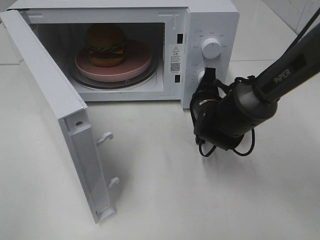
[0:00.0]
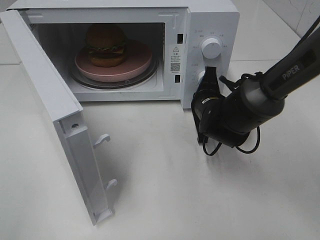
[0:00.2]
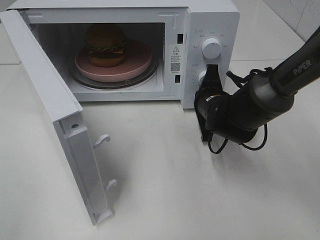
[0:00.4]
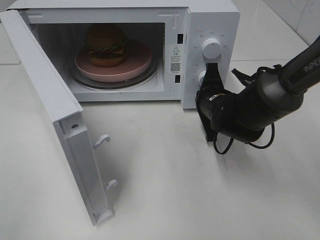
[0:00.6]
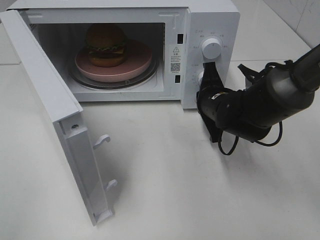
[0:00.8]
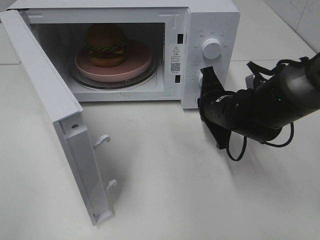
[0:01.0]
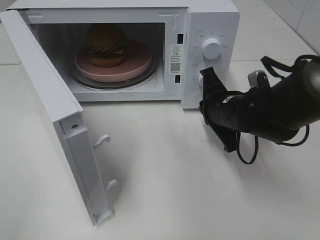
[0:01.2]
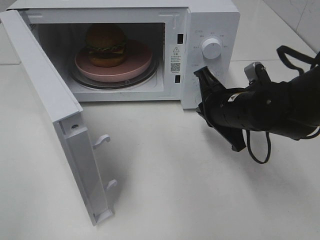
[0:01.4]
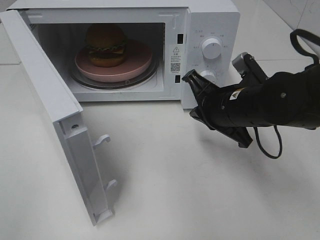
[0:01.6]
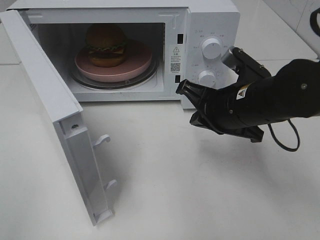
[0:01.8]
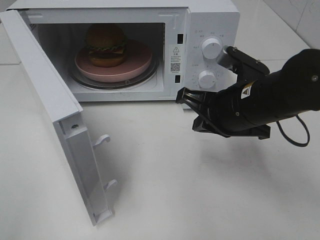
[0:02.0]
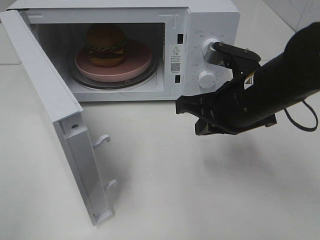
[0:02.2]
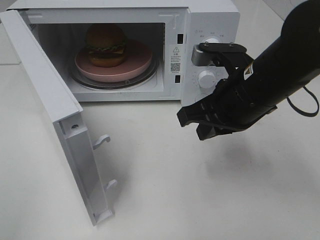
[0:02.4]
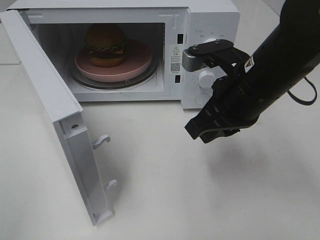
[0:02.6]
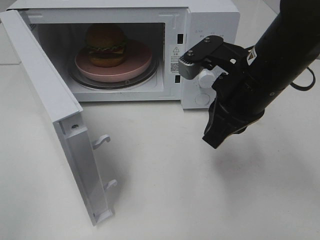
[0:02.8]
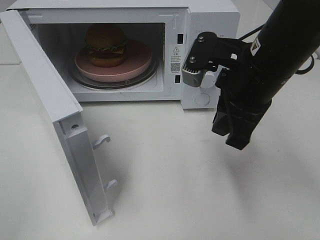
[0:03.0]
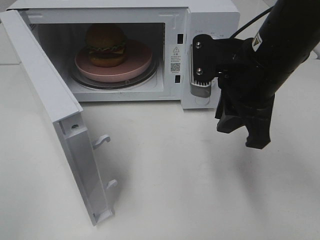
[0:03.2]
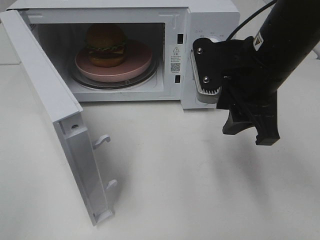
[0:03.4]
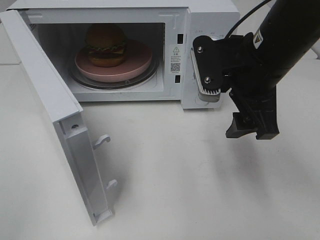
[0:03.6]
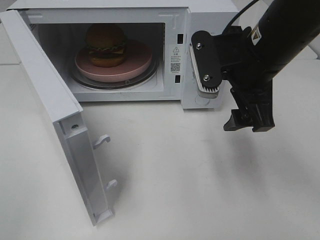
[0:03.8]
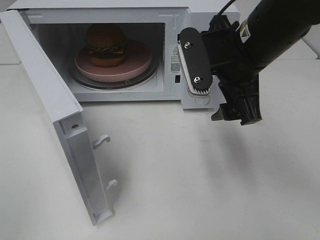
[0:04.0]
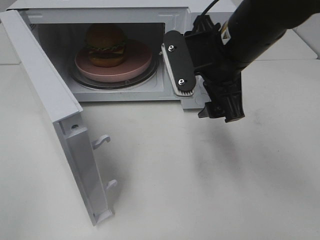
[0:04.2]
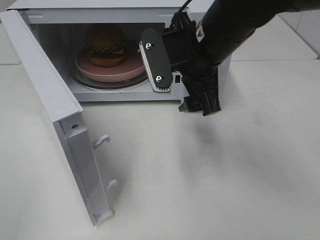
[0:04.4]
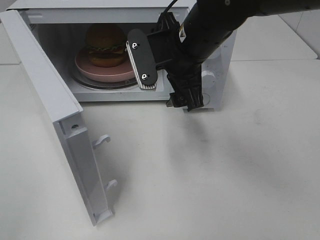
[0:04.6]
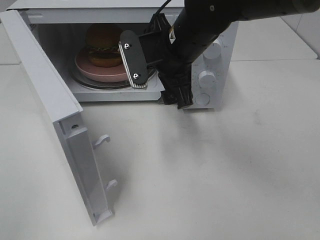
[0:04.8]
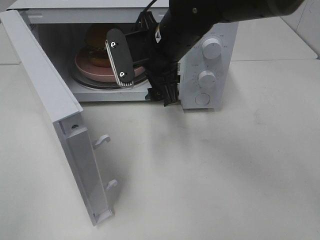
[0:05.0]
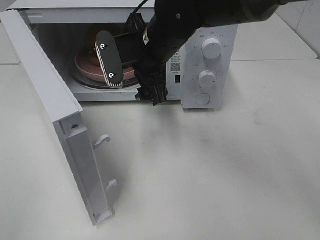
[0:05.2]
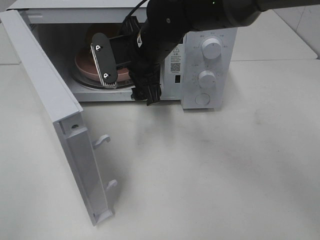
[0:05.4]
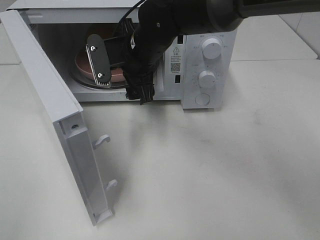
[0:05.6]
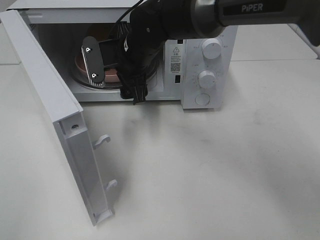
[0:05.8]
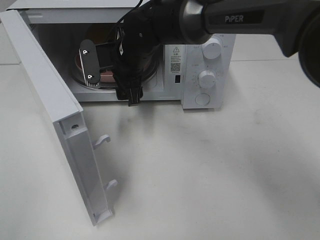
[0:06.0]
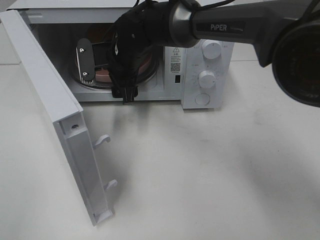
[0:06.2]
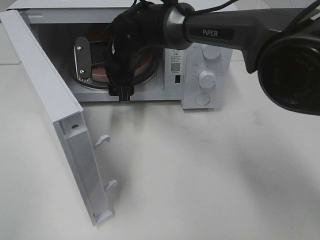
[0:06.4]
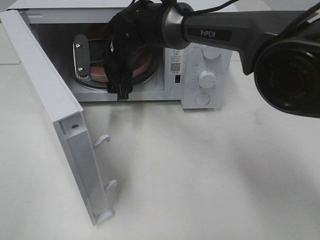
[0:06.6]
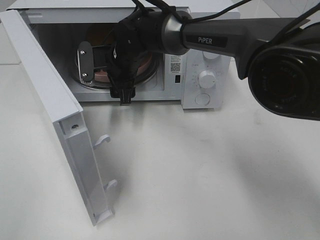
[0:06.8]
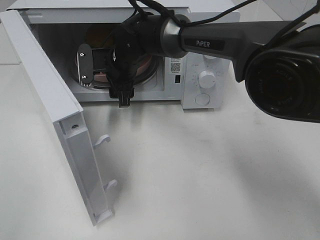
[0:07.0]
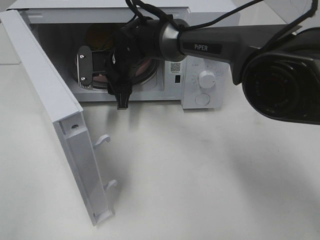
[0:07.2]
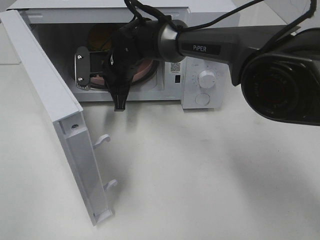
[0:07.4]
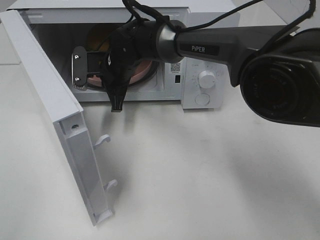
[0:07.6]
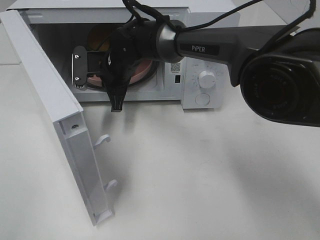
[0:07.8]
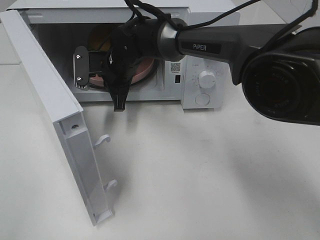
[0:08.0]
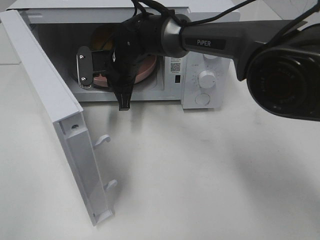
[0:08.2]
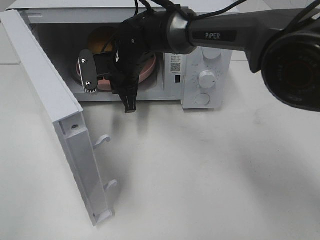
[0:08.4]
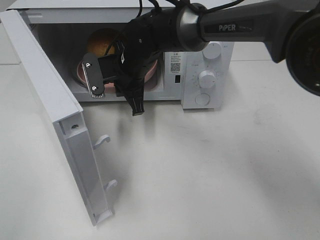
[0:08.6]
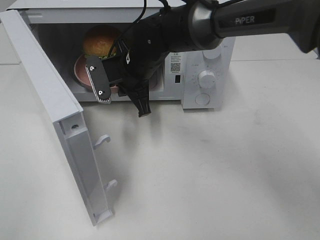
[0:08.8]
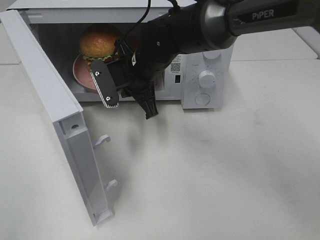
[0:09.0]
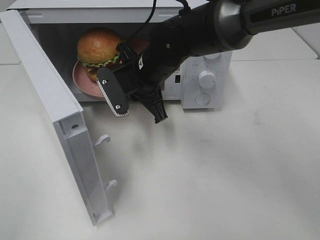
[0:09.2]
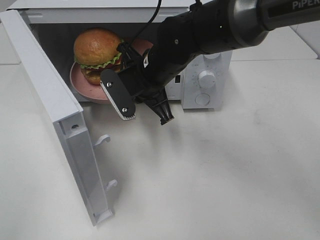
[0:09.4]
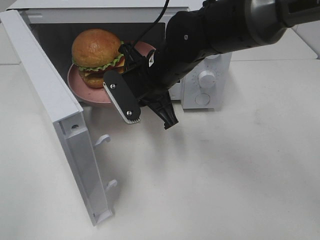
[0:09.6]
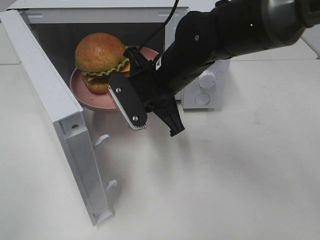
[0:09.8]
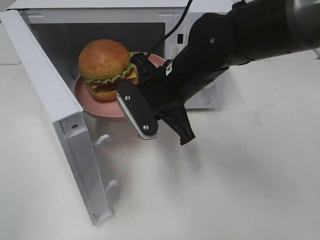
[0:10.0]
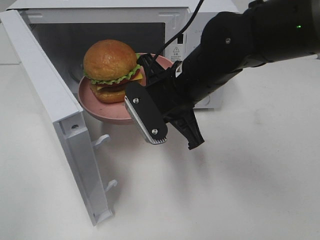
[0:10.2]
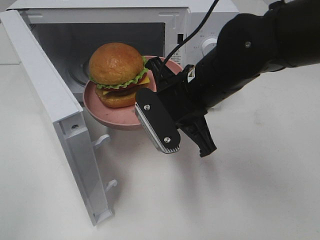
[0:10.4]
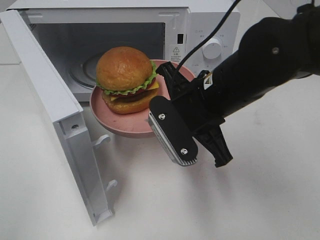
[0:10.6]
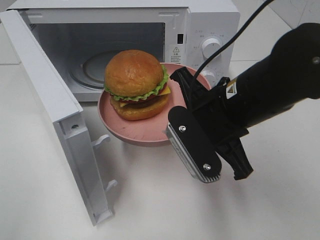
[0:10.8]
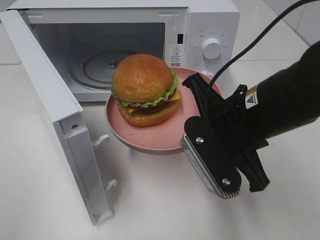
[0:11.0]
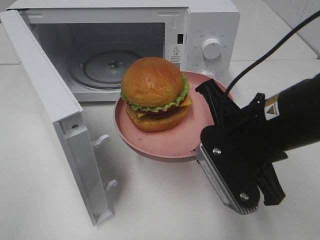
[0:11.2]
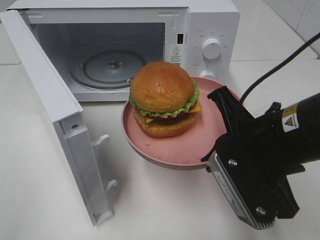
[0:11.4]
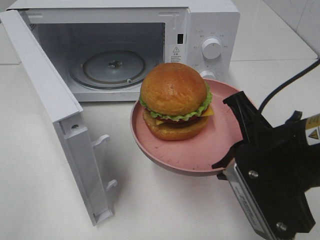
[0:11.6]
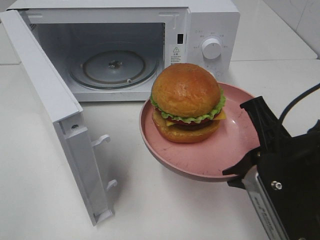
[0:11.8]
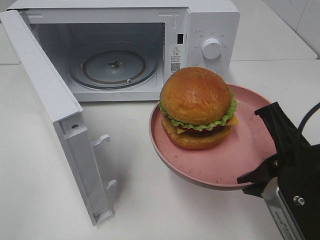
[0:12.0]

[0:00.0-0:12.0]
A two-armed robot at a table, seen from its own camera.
Task of the whole recording: Heat the burger.
Step, 0:01.2 to 0:07.6: Right hand: grab the plate with the hamburger.
0:00.0 to 0:01.6: The right gripper heads backward and upward, covering roughly 10 cm.
0:01.6 to 0:03.0: The right gripper moves upward, some 10 cm.
0:03.0 to 0:04.4: The right gripper is displaced to the left by roughly 5 cm, and opens.
0:04.4 to 0:06.0: The right gripper heads to the left, forward and downward, covering some 15 cm.
0:06.0 to 0:07.6: The right gripper shifts by approximately 5 cm, and closes up.
0:07.6 to 0:09.0: The right gripper is displaced backward and to the right by roughly 10 cm.
0:09.0 to 0:10.4: The right gripper moves backward and to the right, about 15 cm.
0:10.4 to 0:12.0: The right gripper goes approximately 20 cm backward and to the right.

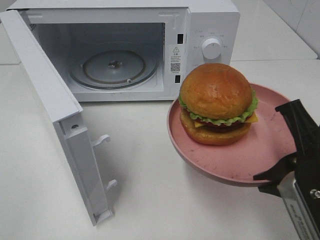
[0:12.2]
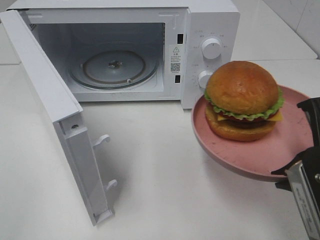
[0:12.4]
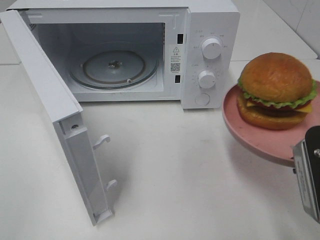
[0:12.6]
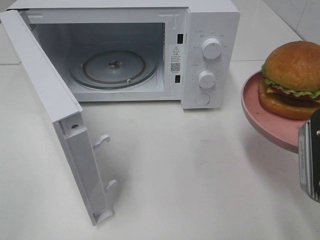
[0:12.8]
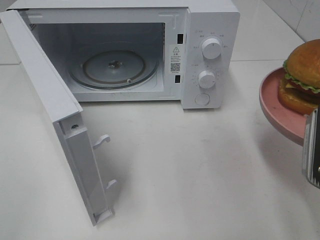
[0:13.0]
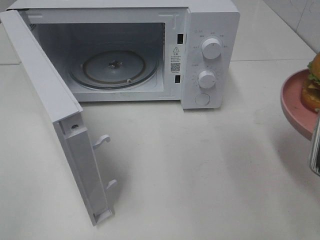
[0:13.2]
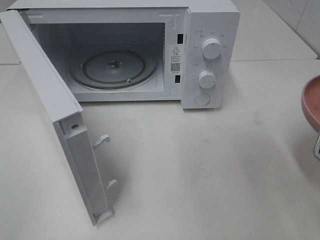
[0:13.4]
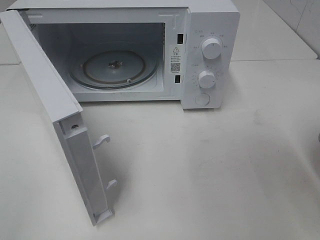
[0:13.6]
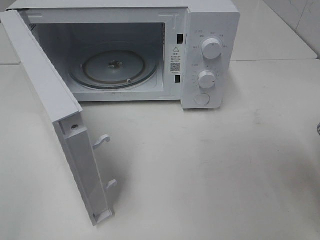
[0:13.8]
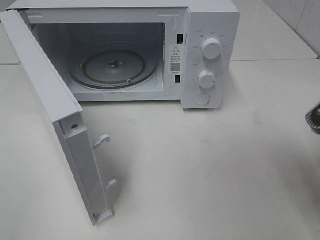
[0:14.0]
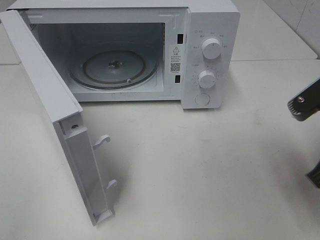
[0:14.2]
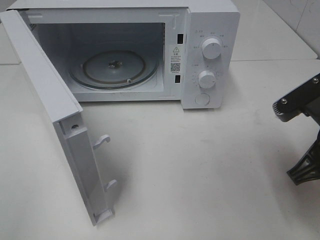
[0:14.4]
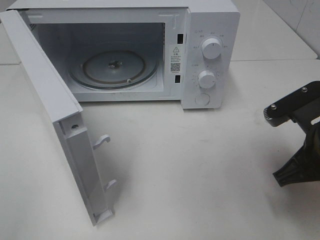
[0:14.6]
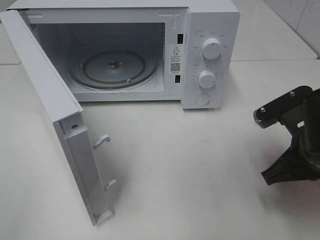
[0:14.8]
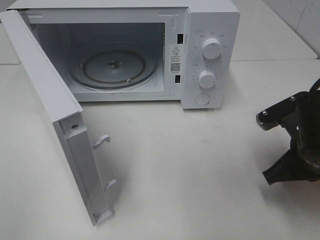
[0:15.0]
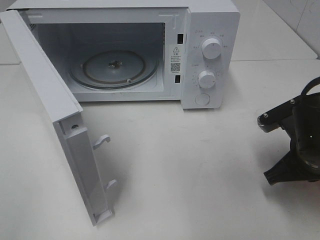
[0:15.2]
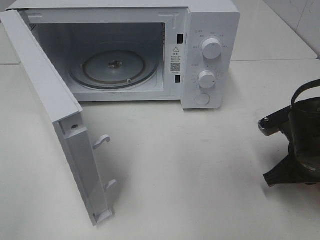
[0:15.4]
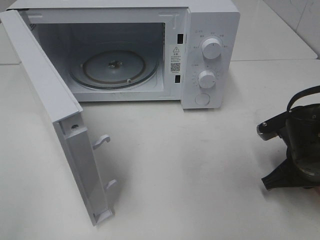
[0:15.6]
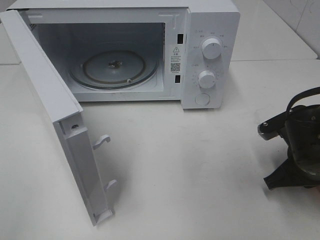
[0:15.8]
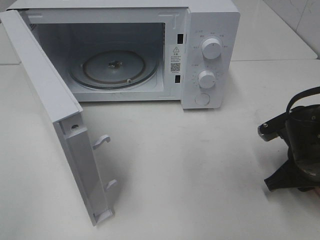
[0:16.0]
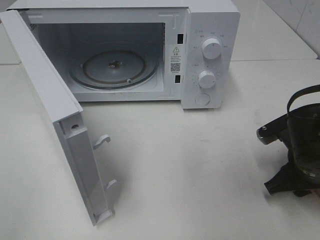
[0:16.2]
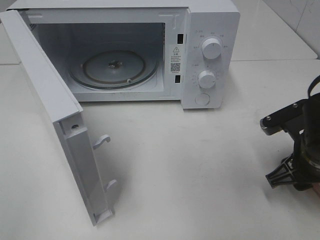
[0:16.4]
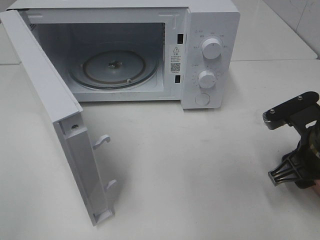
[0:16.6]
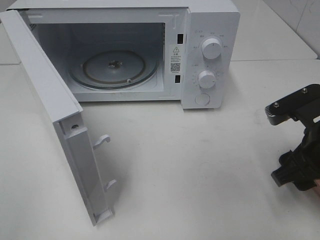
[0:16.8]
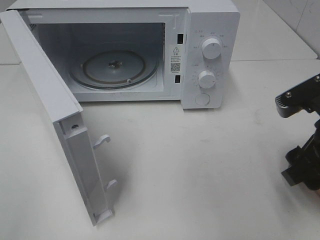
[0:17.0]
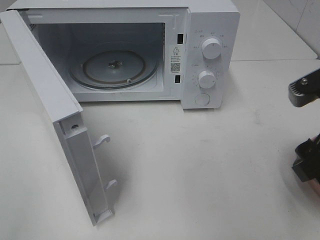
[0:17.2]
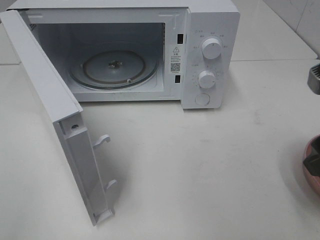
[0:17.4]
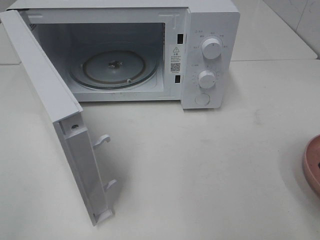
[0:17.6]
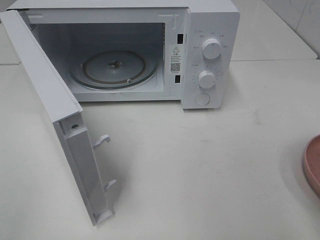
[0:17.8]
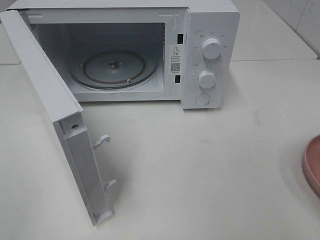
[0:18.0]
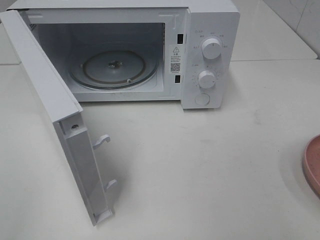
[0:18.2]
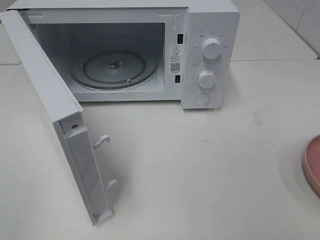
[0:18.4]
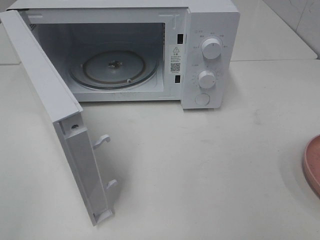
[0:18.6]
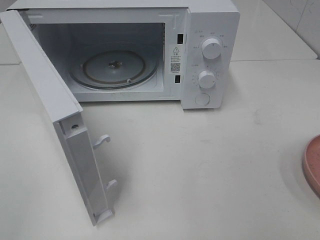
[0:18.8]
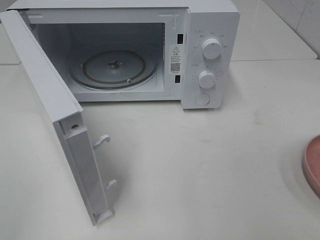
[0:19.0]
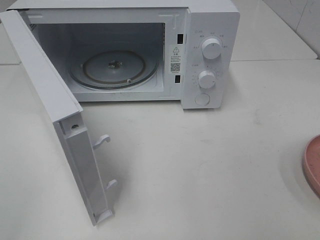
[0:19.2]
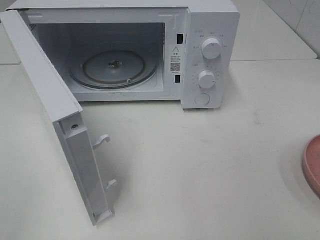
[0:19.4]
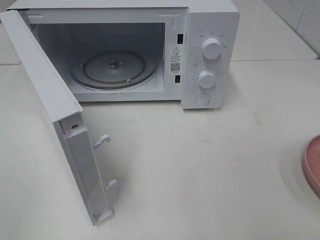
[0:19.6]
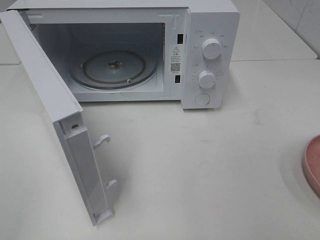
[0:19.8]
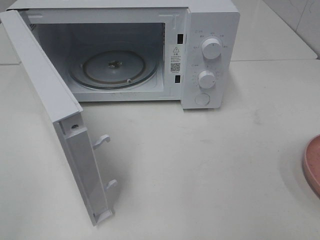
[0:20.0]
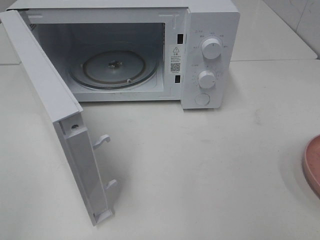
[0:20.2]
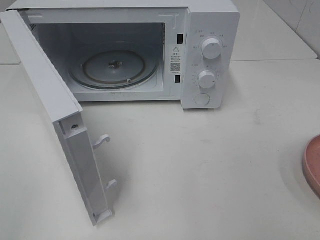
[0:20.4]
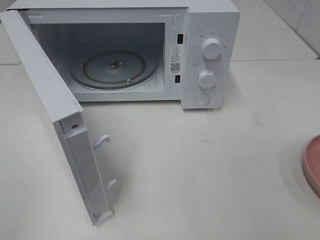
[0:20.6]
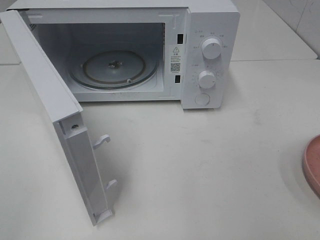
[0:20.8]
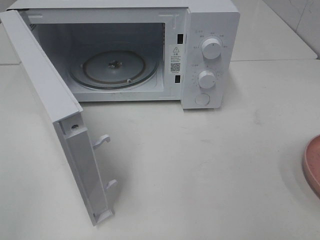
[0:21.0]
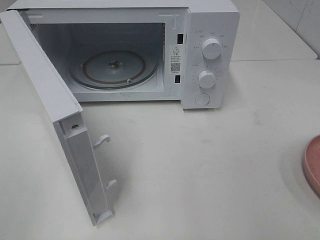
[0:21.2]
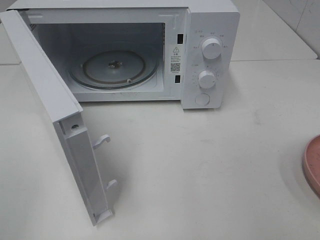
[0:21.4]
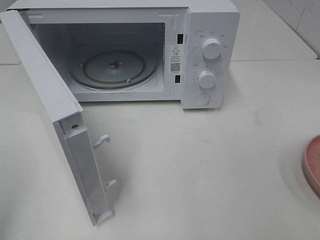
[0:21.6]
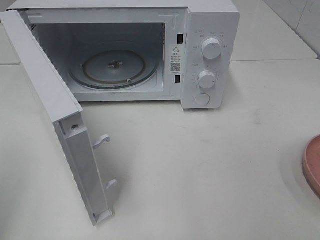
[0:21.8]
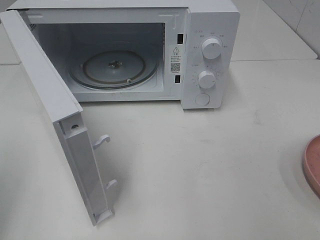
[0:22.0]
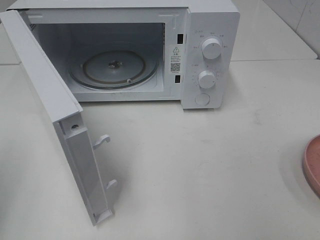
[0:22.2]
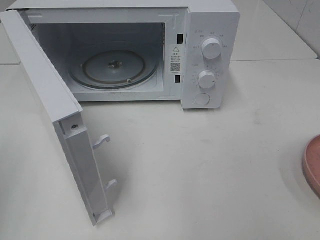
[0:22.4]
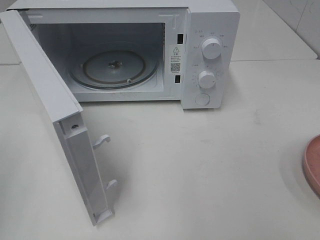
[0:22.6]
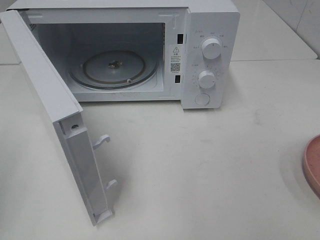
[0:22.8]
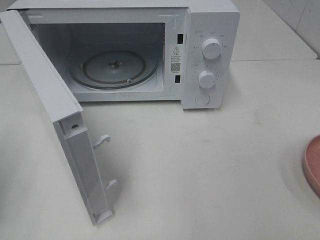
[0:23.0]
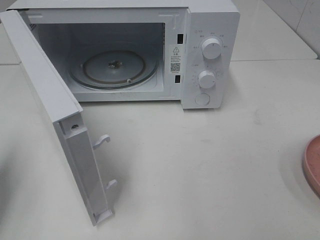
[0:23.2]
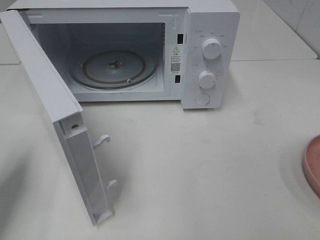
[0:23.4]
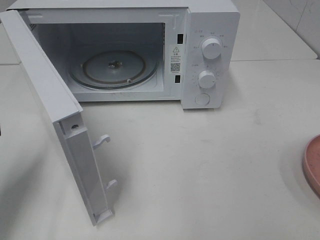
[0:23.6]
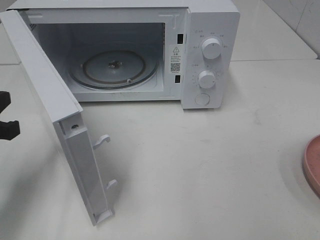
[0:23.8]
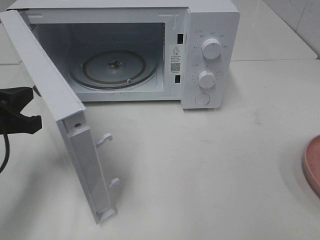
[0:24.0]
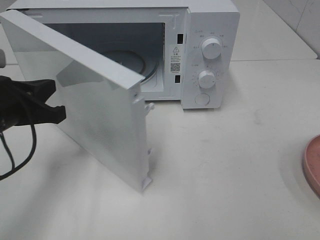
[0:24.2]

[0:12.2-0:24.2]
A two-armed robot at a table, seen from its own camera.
Task of the whole recording: Heat the burger.
Step, 0:12.2 to 0:16.2: Right hand: place the plate on the table.
0:12.2 to 0:13.8: The right gripper is displaced to the right by roughly 5 cm.
0:13.8 to 0:15.2: The right gripper heads downward and forward, covering roughly 15 cm.
0:15.2 to 0:16.6: The right gripper opens.
0:16.6 to 0:18.2: The right gripper heads upward and backward, covering approximately 20 cm.
0:22.6 to 0:24.2: The left gripper heads forward, to the right and downward, covering some 20 cm.
